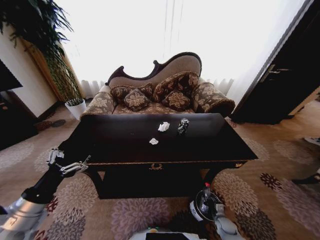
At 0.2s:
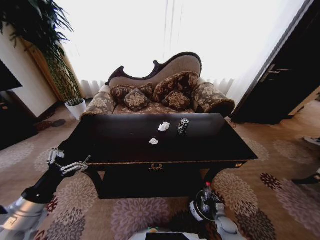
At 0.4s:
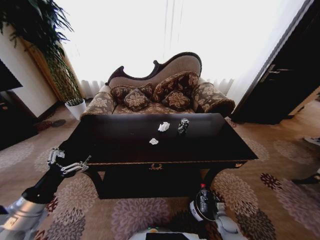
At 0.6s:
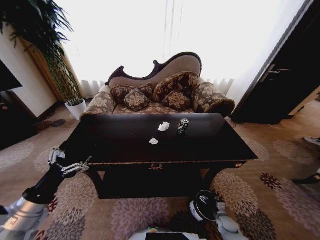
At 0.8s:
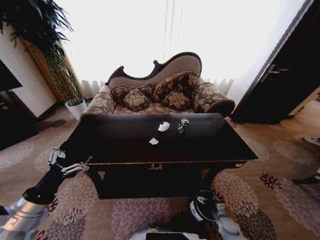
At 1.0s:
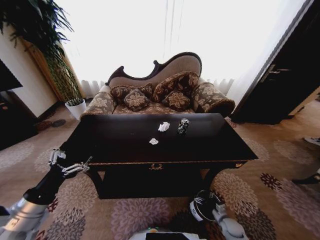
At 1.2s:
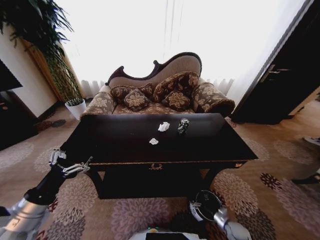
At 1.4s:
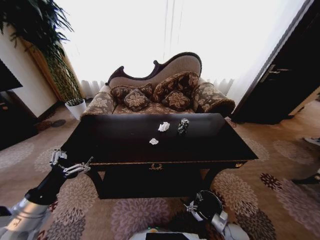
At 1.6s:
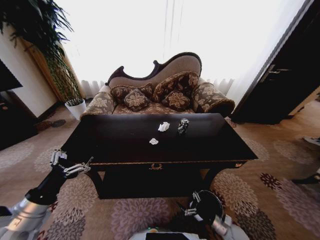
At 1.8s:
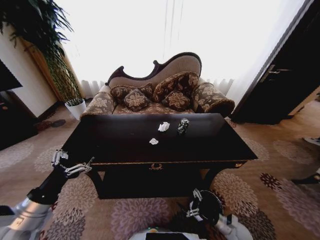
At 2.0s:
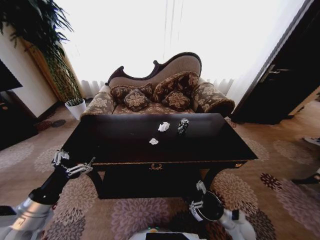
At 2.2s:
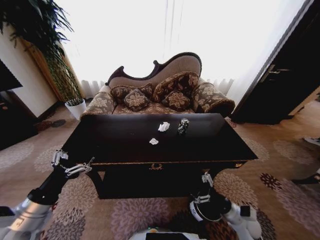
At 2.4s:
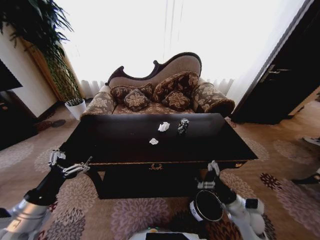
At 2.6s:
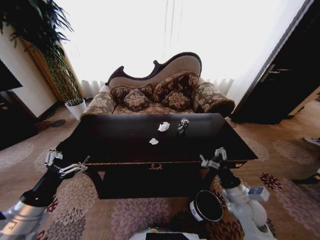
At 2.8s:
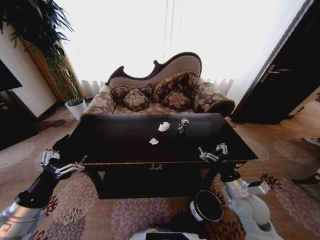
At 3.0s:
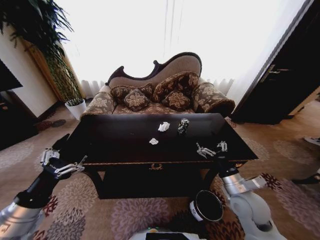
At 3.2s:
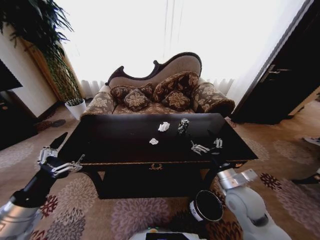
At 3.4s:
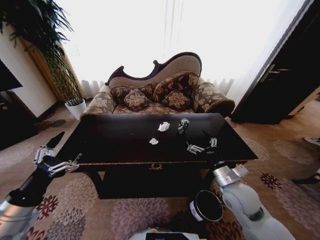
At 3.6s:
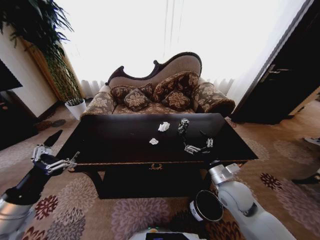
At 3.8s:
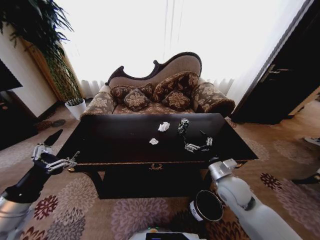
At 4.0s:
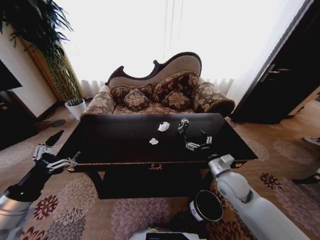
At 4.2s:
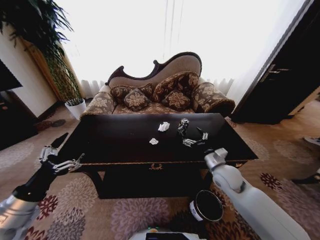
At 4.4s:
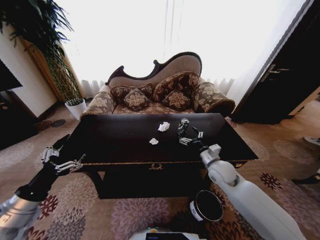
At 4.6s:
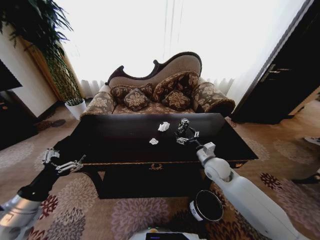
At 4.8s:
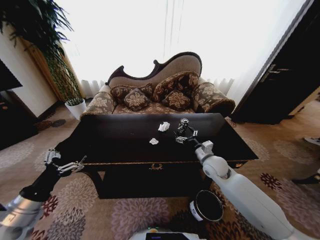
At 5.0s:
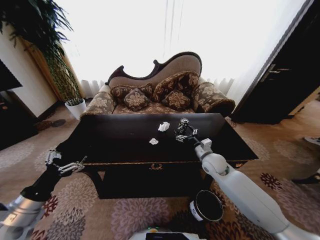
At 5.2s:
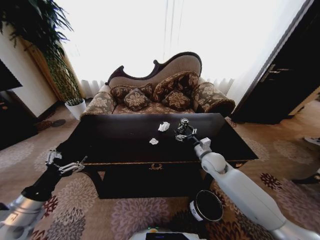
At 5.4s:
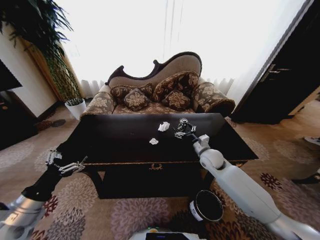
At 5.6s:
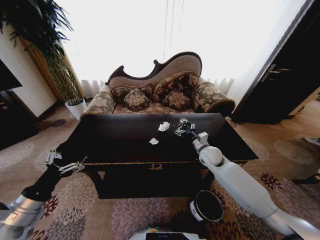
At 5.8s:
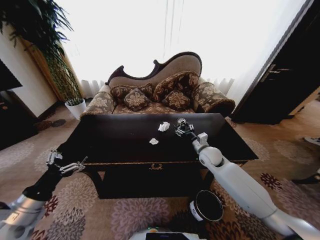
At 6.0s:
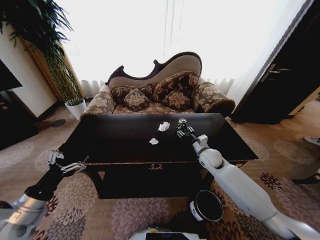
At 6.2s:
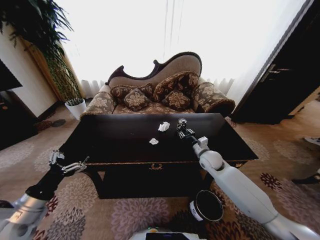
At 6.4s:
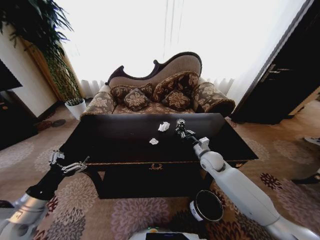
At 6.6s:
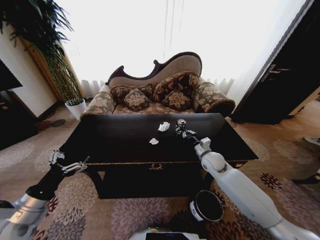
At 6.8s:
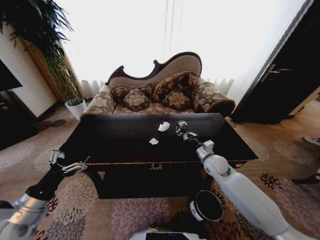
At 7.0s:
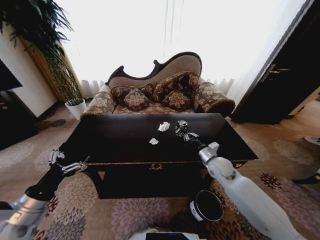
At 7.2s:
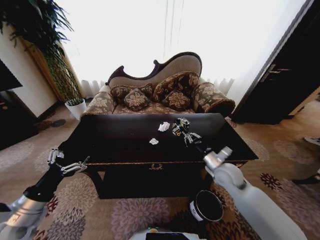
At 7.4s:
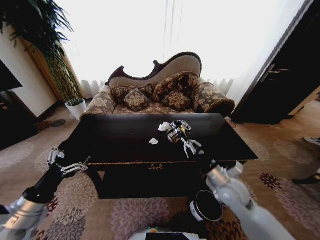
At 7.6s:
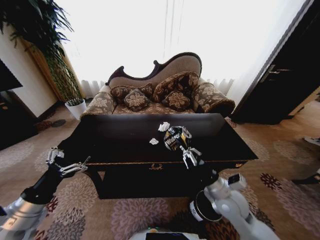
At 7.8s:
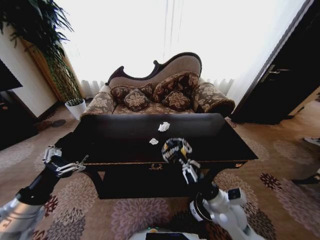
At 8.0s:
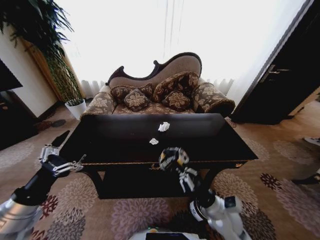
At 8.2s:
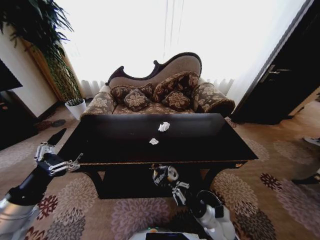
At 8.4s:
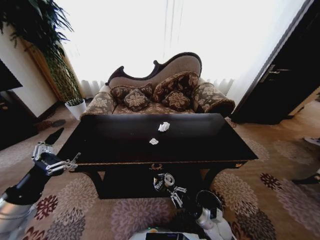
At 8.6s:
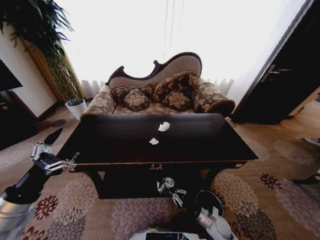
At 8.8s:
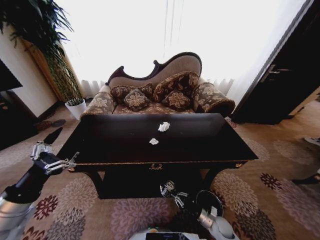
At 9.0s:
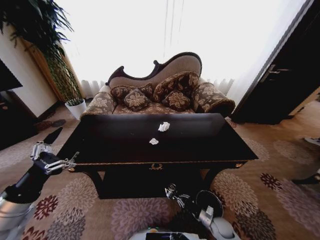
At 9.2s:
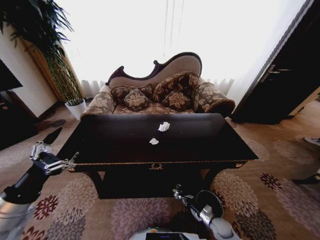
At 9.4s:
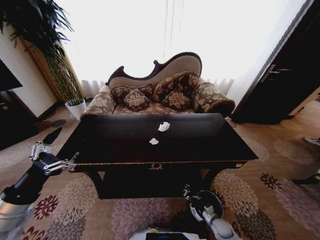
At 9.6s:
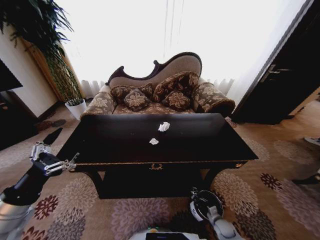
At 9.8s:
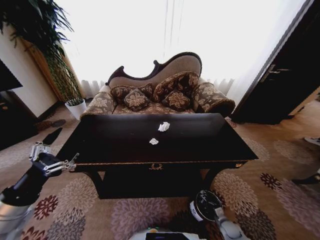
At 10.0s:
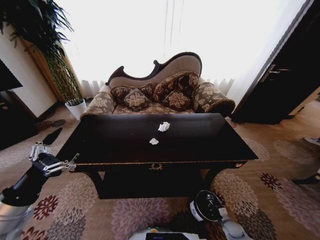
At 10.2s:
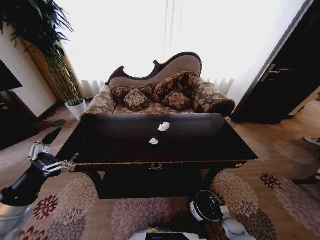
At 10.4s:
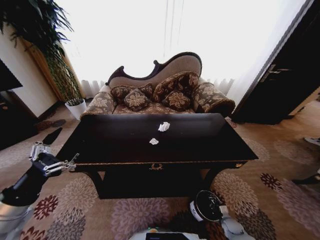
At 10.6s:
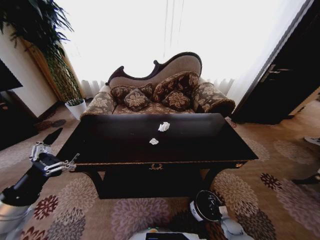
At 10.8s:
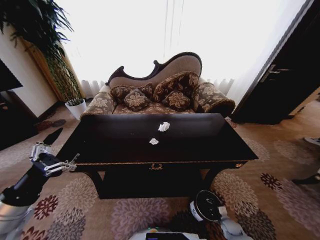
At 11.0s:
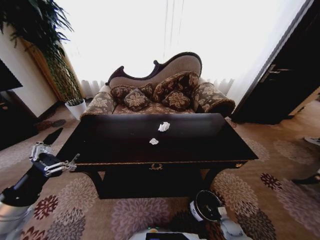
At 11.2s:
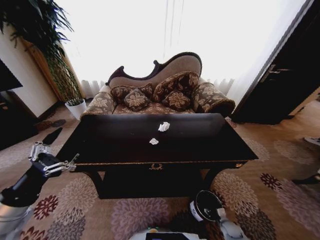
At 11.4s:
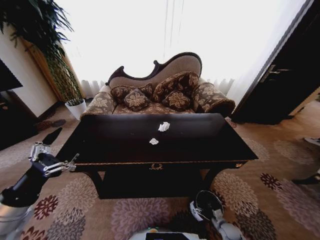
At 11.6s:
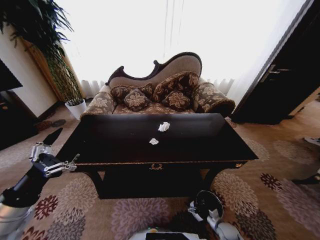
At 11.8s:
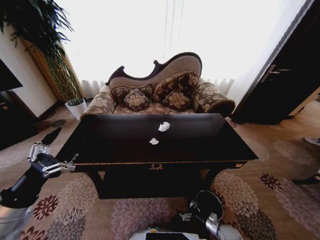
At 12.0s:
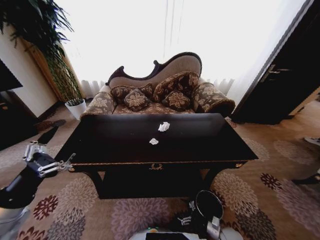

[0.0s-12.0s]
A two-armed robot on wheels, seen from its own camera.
Task of the whole recording: Move to the front of the table and place the trash on the table into the trash bin.
0.0s to 1.6s: The right gripper is displaced upward by roughly 5 cm, and opens.
1.6s to 3.0s: The right gripper moves upward, roughly 30 cm.
3.0s to 4.4s: The right gripper moves forward, roughly 10 cm.
4.4s to 6.0s: The right gripper heads forward, covering about 10 cm, and closes.
6.0s to 7.6s: The right gripper is displaced backward by approximately 20 cm, and closes.
7.6s to 9.0s: The right gripper is displaced downward by approximately 30 cm.
9.0s to 10.4s: The right gripper shifts roughly 10 cm to the right and downward.
10.4s to 12.0s: The right gripper is displaced to the left by approximately 5 cm, and opens up.

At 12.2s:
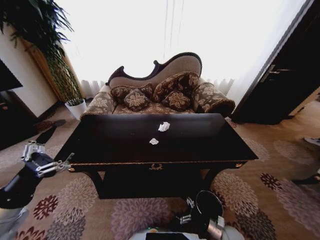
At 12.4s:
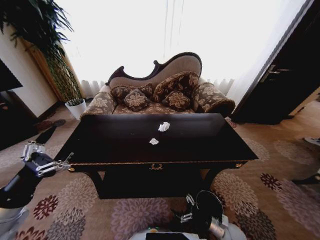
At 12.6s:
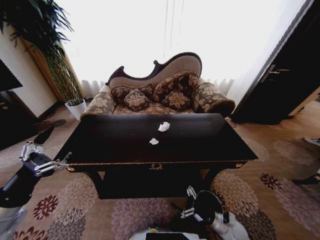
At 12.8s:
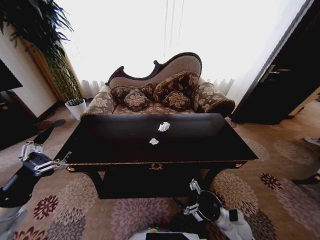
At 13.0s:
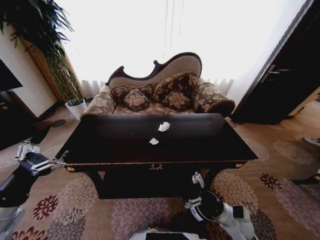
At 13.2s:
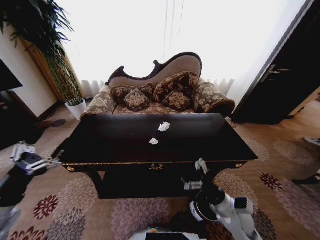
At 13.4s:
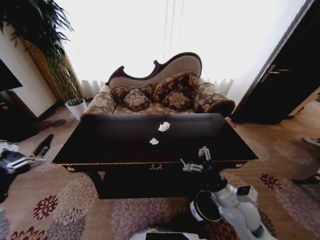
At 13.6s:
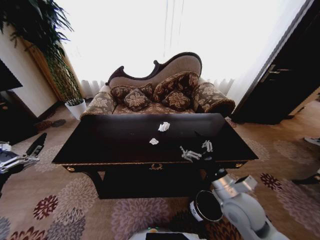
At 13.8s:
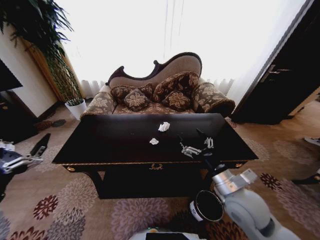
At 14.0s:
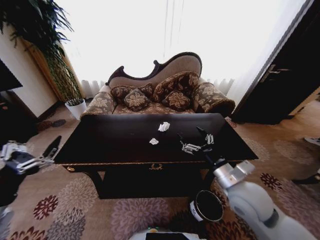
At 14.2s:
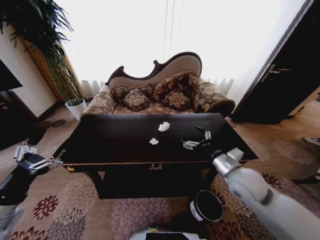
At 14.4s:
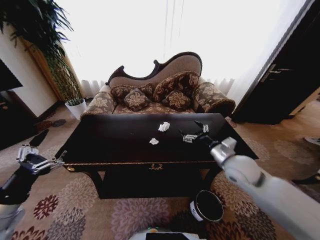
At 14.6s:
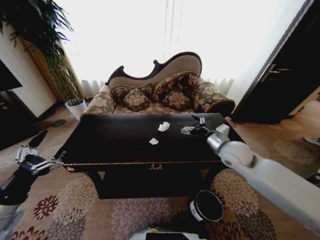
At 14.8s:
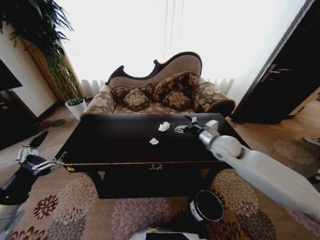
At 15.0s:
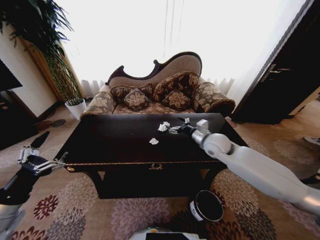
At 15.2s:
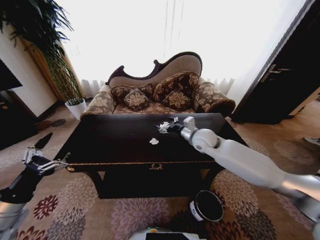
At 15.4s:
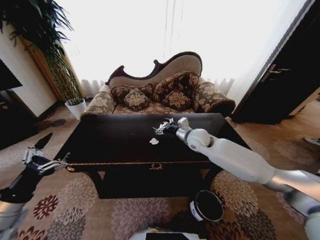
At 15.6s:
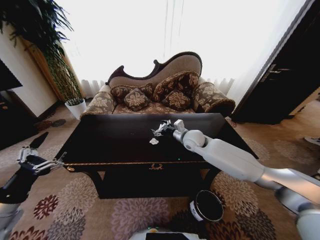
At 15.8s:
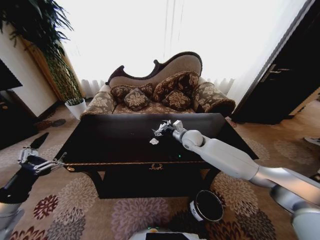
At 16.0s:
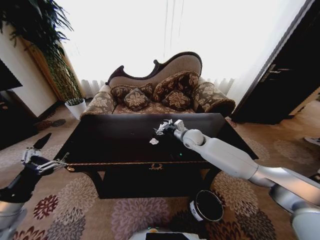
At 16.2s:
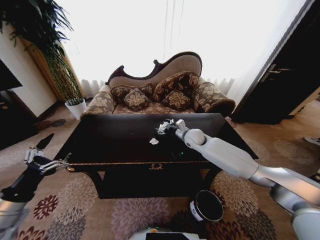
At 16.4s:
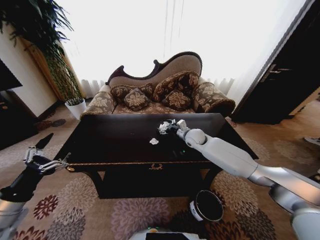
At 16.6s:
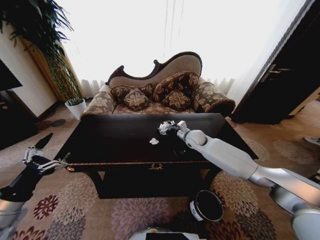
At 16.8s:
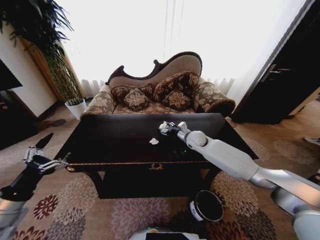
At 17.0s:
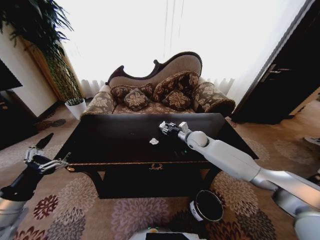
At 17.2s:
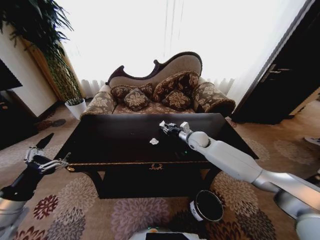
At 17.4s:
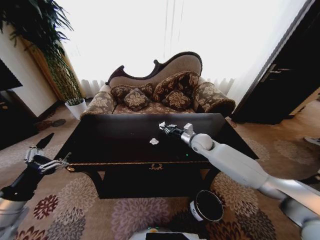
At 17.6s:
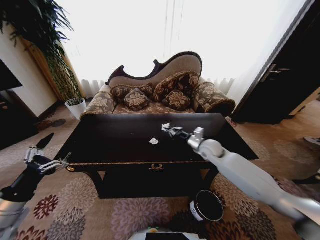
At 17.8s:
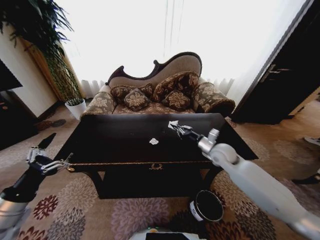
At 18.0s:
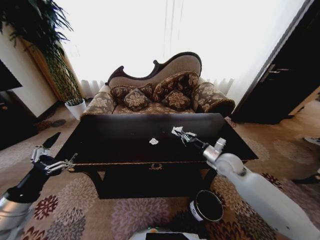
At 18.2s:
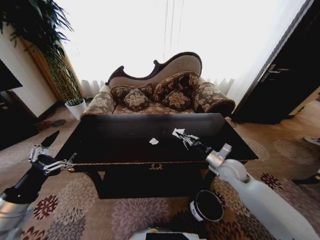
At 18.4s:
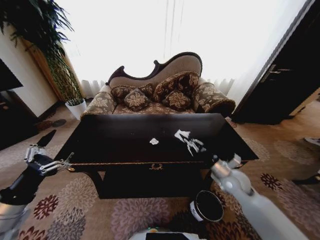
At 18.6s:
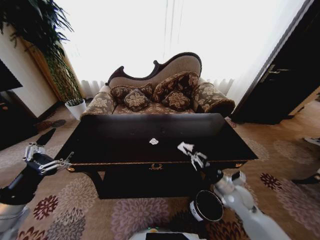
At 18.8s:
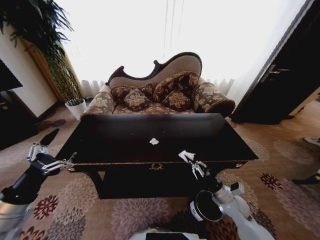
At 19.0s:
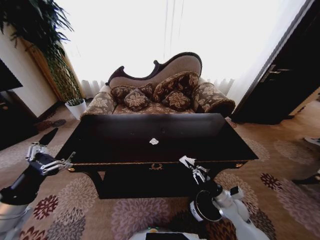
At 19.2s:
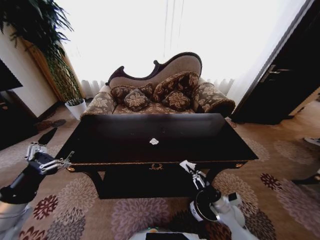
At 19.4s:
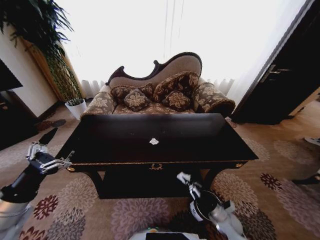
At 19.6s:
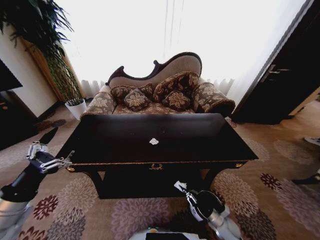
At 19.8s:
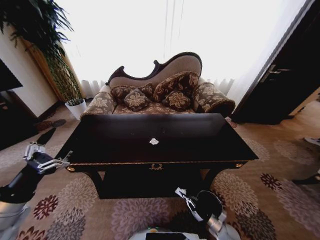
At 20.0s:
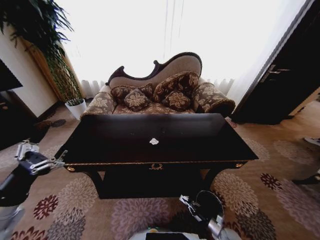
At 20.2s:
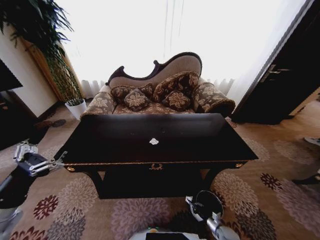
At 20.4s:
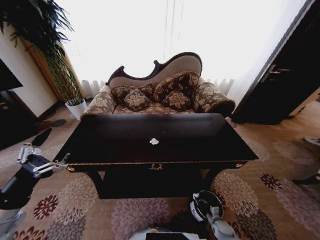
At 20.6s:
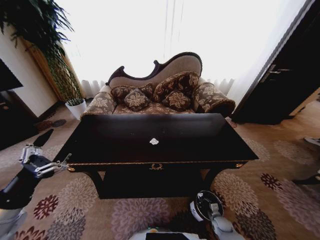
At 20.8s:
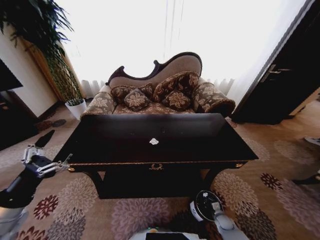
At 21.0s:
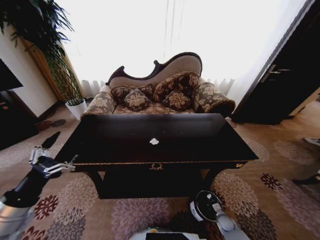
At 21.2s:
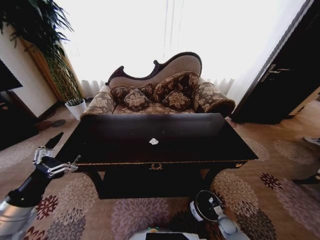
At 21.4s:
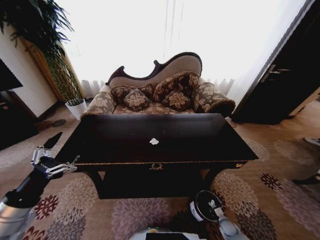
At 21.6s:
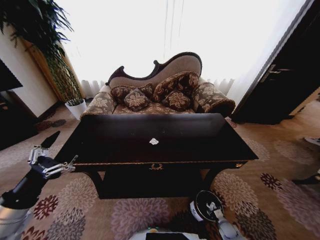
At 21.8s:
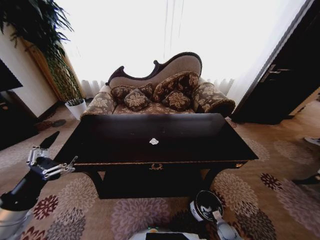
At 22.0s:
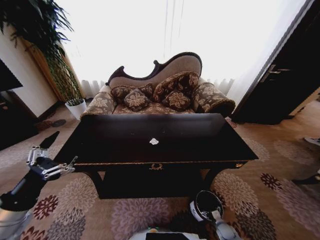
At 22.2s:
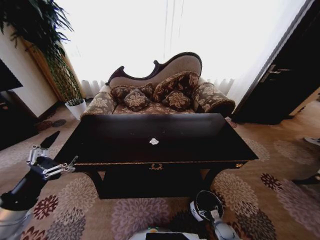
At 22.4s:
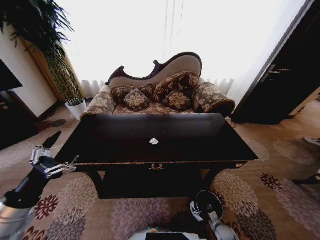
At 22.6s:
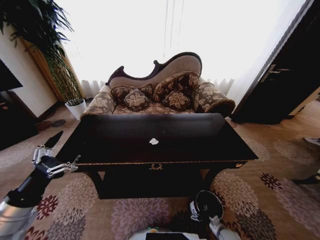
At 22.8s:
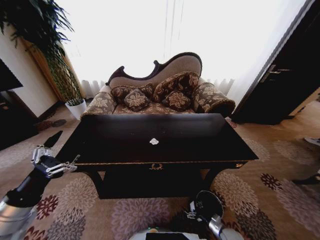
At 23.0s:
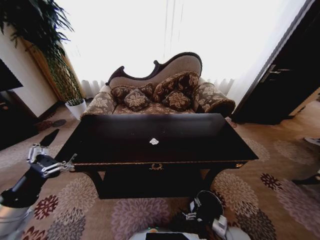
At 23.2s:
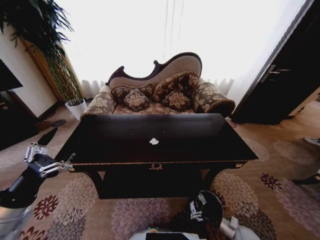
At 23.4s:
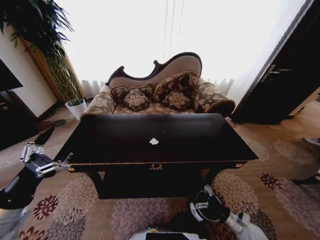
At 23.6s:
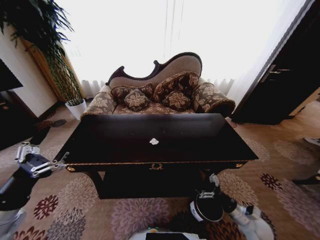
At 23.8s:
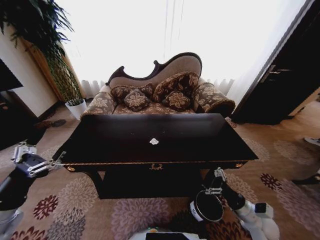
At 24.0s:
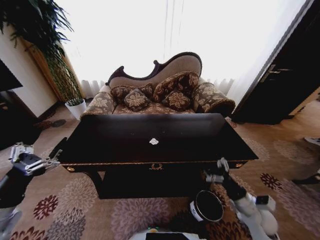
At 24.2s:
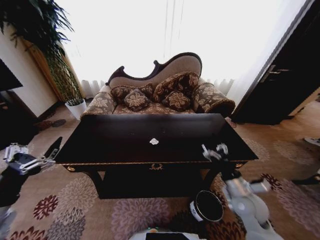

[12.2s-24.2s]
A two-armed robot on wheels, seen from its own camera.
Task of the whole recording: Move to the front of the table and place the trash on the table into the trash bin.
12.2s to 13.8s: The right gripper is displaced upward by about 35 cm.
13.8s to 15.2s: The right gripper is displaced forward by about 25 cm.
15.2s to 16.6s: The right gripper moves forward and downward, some 10 cm.
16.6s to 18.2s: The right gripper heads backward and to the right, covering about 20 cm, and closes up.
18.2s to 19.8s: The right gripper heads downward and backward, covering about 40 cm.
19.8s to 21.2s: The right gripper moves roughly 5 cm.
21.2s to 22.6s: The right gripper shifts by about 5 cm, and opens.
22.6s to 24.2s: The right gripper moves upward, about 35 cm.
